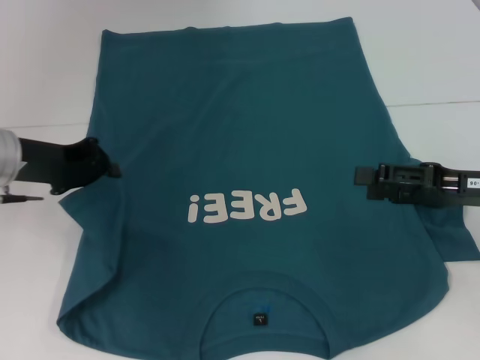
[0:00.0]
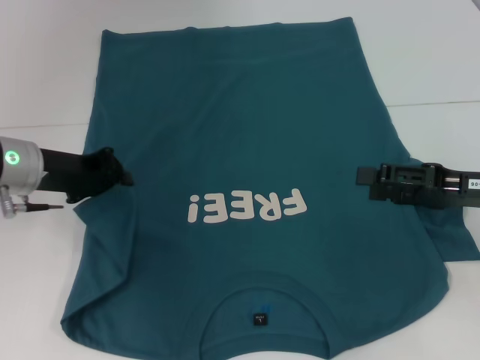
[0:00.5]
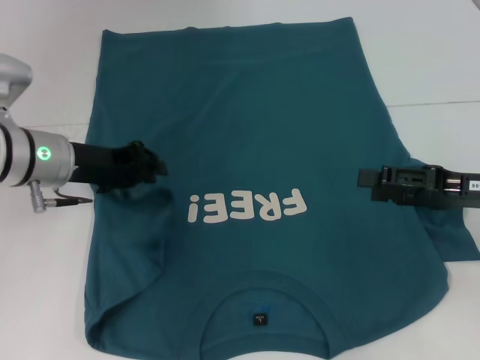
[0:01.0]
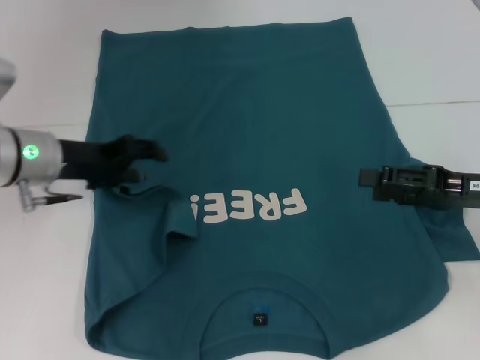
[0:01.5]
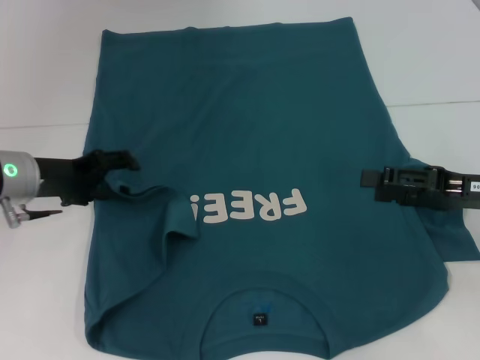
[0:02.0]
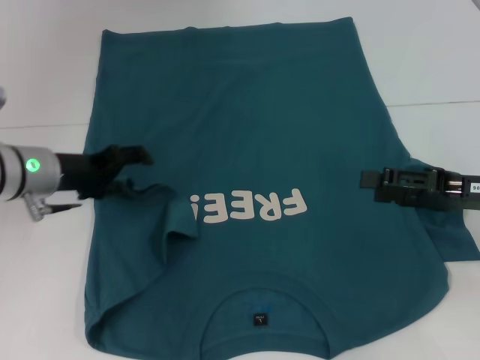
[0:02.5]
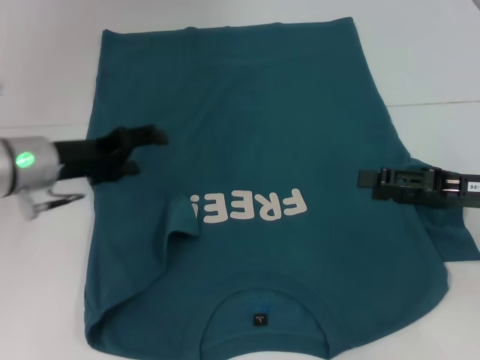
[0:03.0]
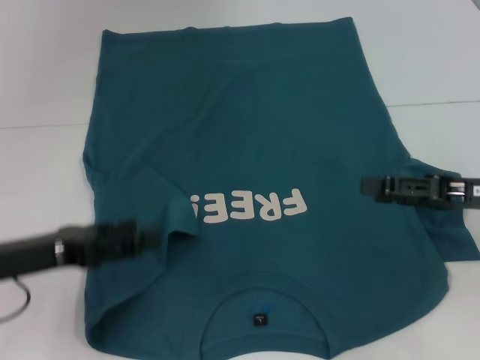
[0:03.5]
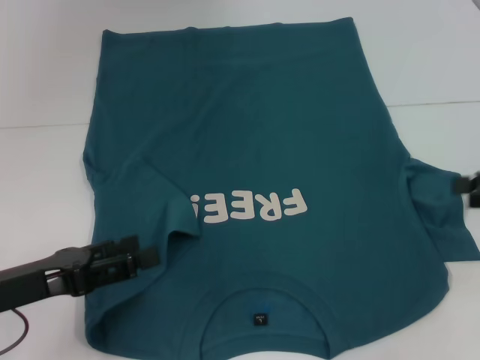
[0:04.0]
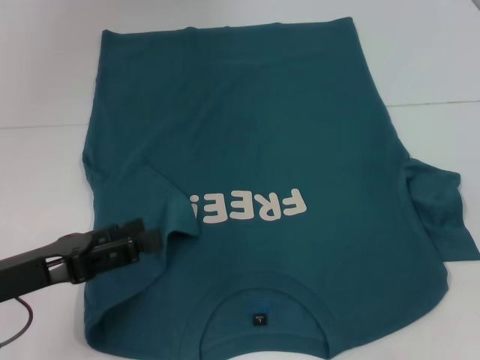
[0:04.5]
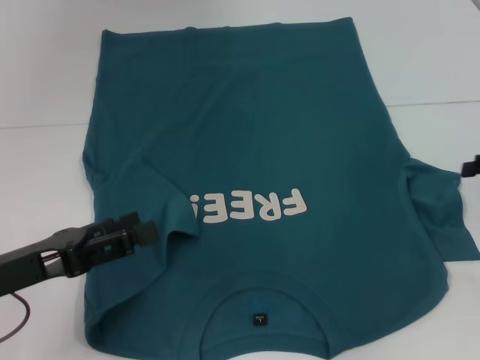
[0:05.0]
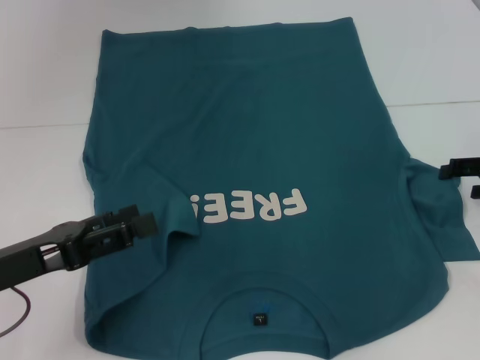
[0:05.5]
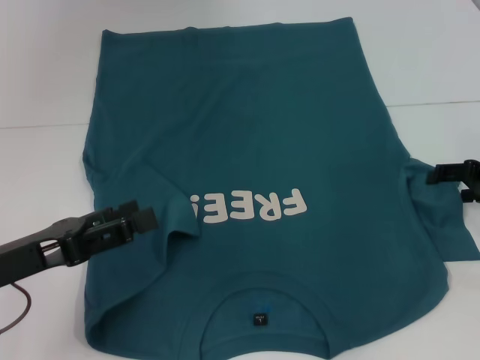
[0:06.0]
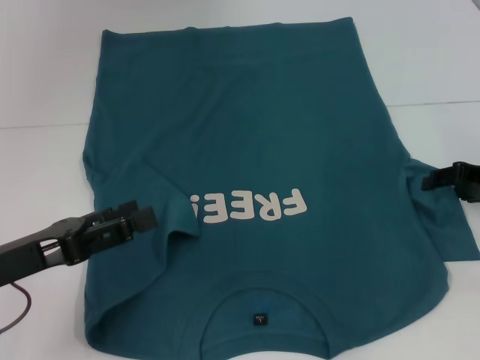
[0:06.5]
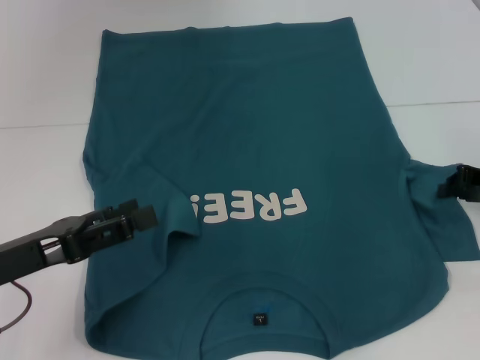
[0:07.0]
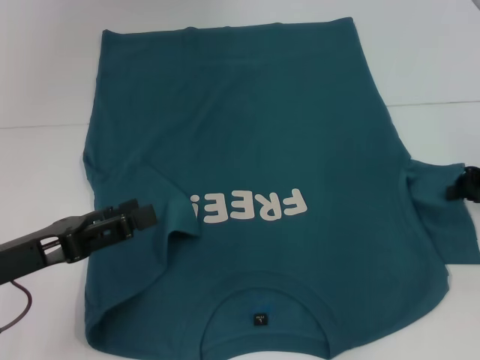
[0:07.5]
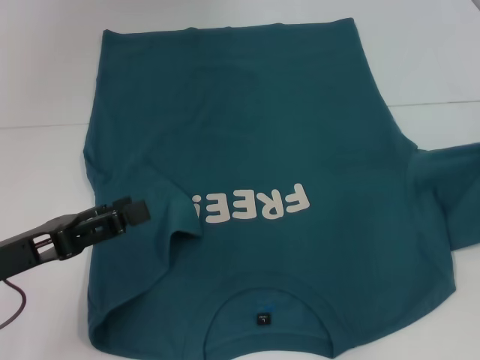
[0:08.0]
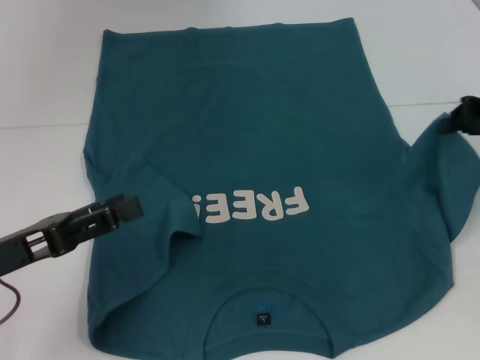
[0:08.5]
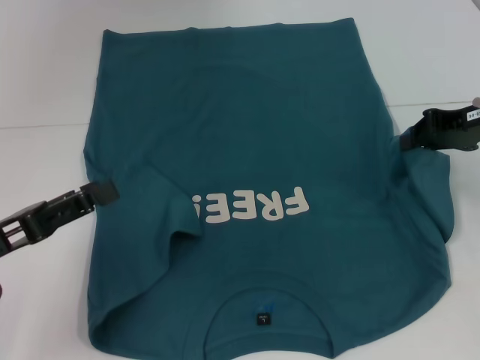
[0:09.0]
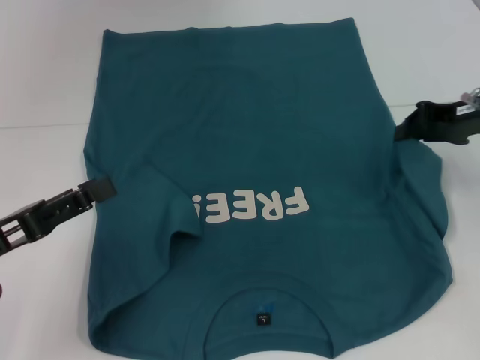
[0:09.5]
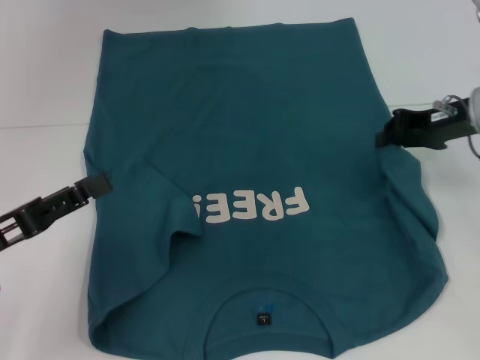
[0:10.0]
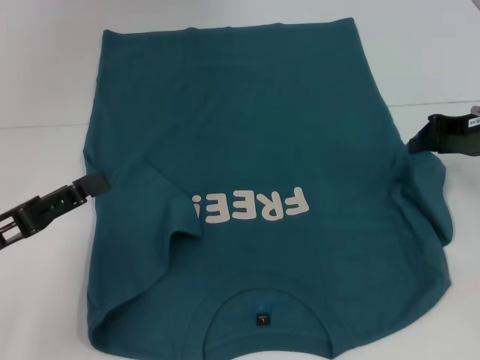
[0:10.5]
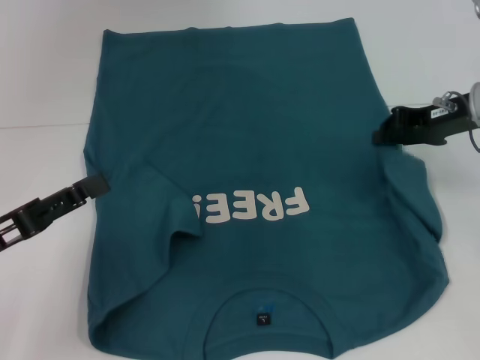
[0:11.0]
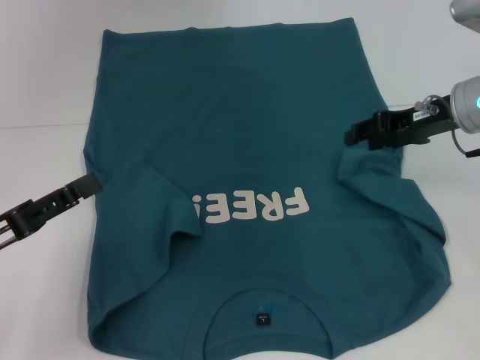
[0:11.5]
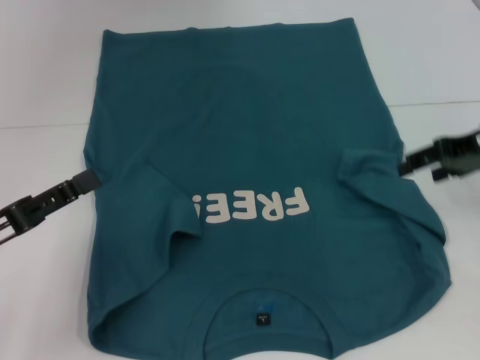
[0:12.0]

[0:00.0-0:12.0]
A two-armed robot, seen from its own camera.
Step, 0:00.0 to 0:03.0: Fold the bottom left sleeve with your left hand.
0:00.0 to 0:02.0: The left gripper opens up.
0:02.0 to 0:04.0: The right gripper goes roughly 10 cm to the right. The left gripper travels backward by some 15 cm.
0:04.0 to 0:06.0: The right gripper is displaced forward and downward by roughly 10 cm.
0:06.0 to 0:08.0: The right gripper changes place by some 5 cm, and closes up.
0:08.0 to 0:10.0: The right gripper shifts some 10 cm to the left.
0:10.0 to 0:12.0: The right gripper opens its fingers.

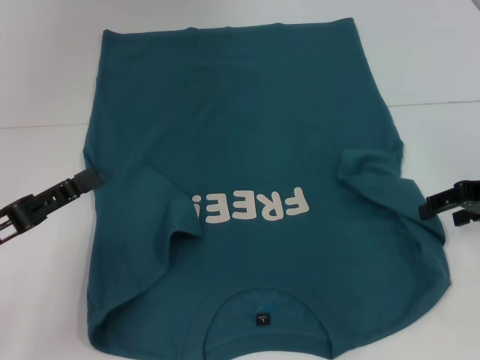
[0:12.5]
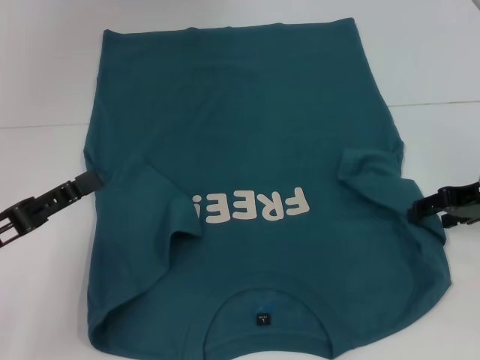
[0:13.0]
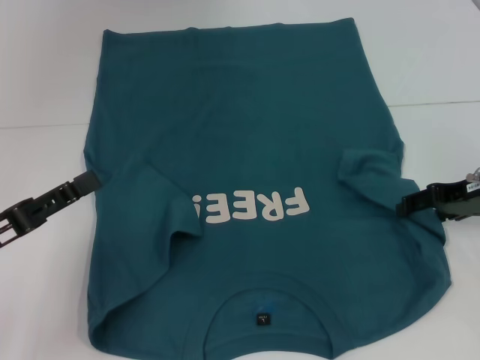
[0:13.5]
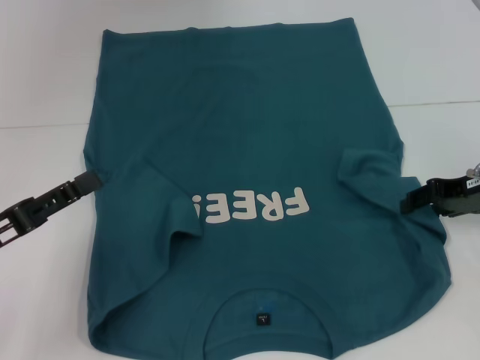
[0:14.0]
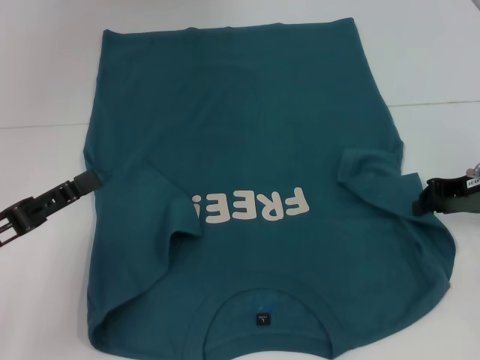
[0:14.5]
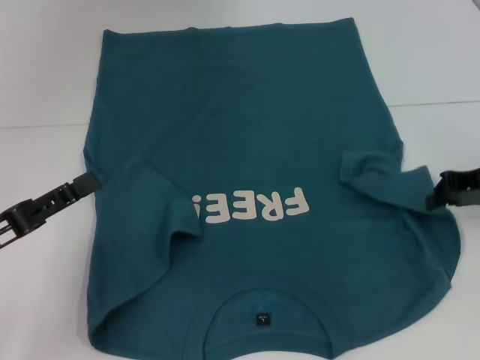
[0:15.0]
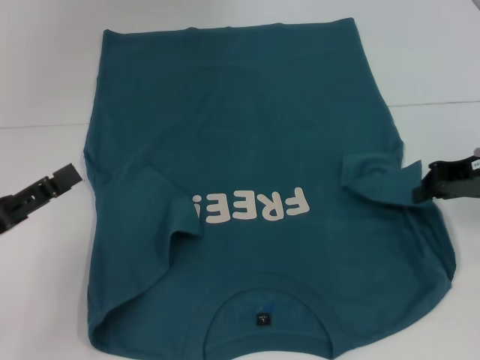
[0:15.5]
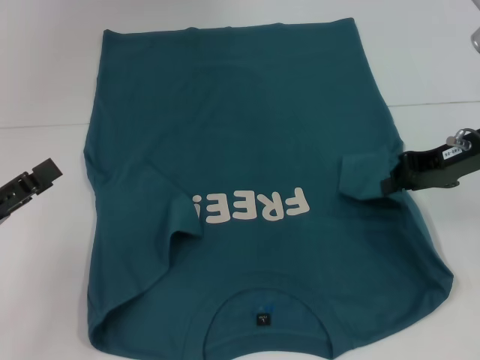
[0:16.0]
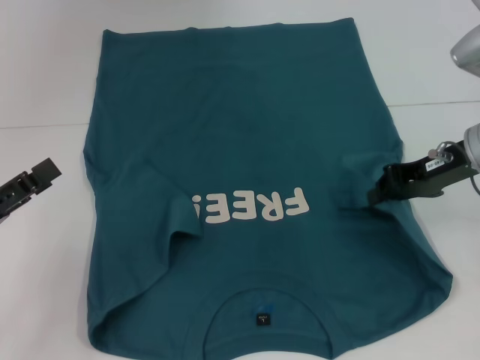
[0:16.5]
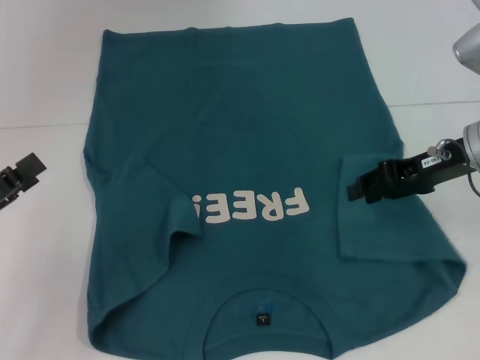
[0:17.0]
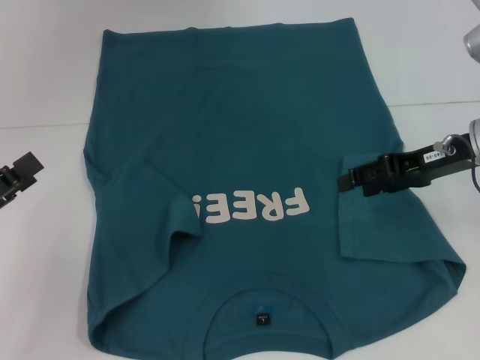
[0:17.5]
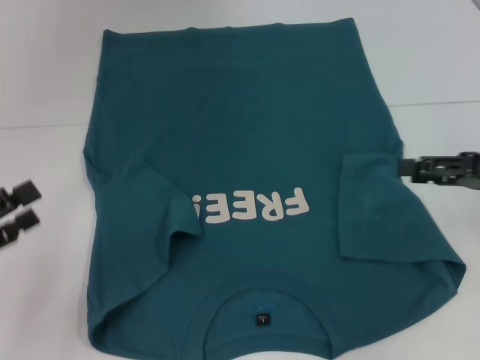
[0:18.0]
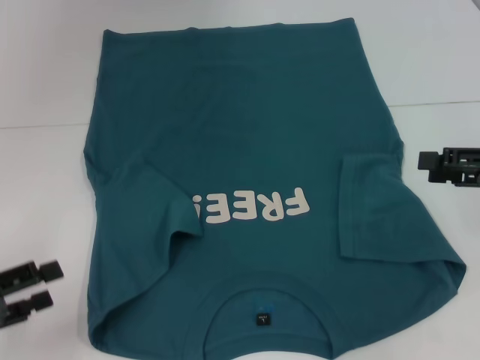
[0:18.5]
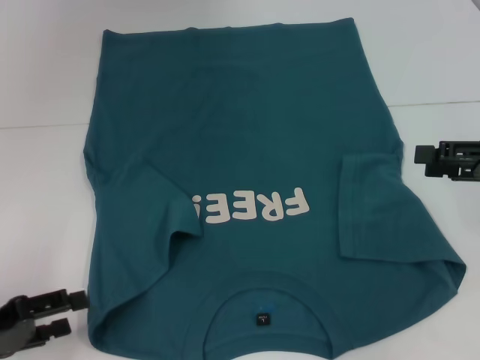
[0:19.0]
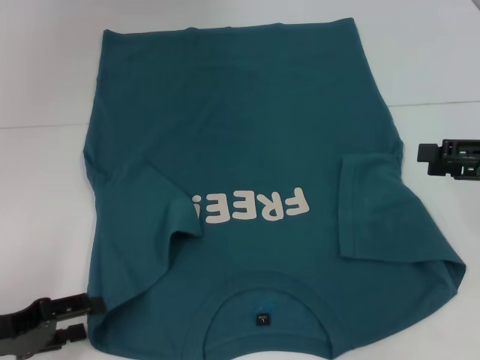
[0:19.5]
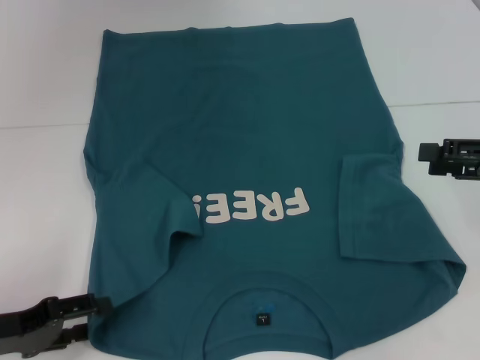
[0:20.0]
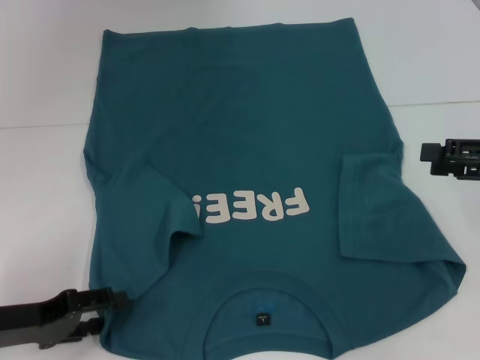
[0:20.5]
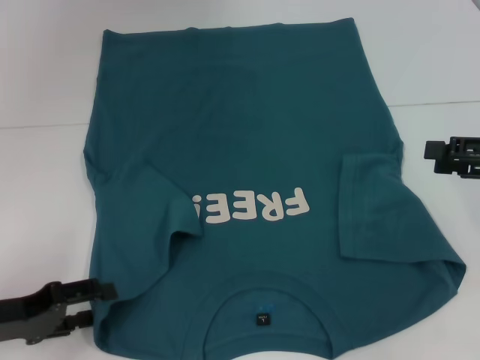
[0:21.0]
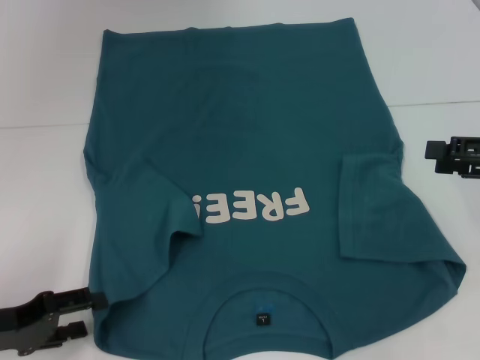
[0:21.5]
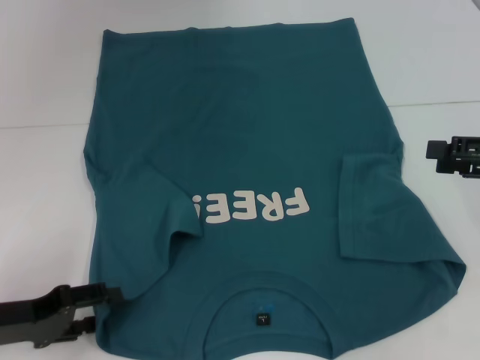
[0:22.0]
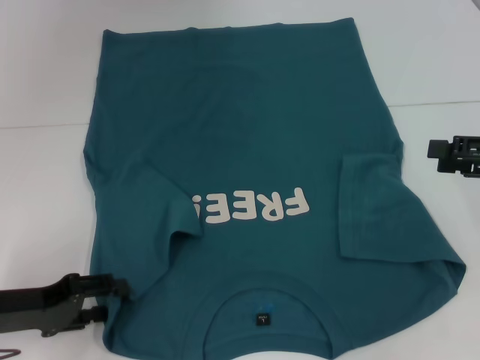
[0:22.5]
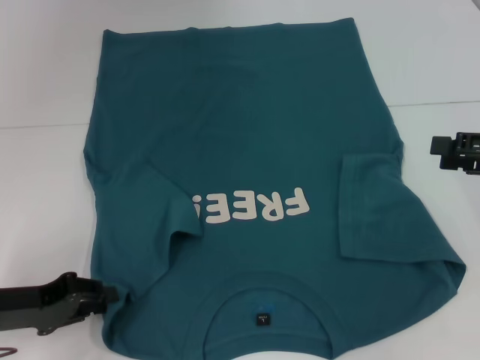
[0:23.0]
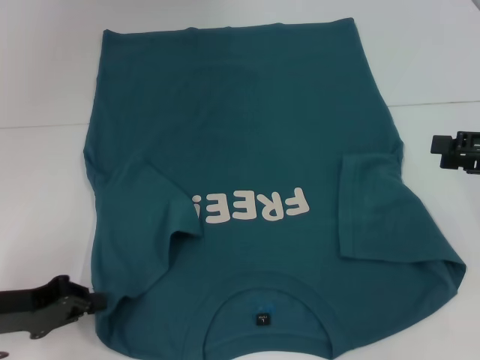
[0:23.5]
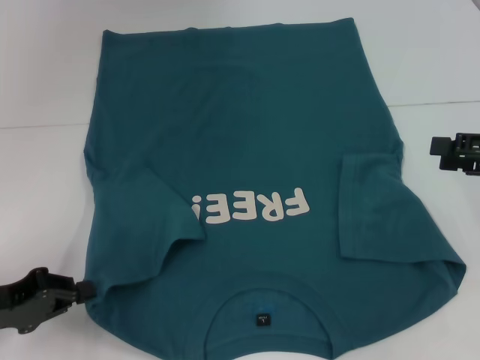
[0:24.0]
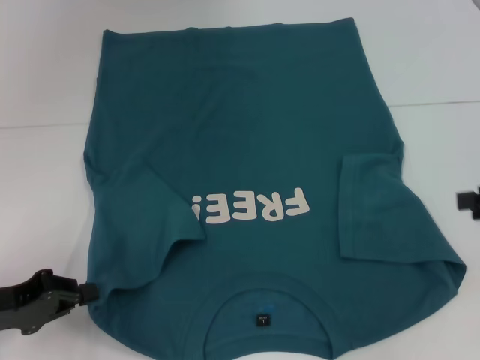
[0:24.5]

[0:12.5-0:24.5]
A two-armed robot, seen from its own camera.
Step, 0:12.5 to 0:17.0: Fold the bottom right sleeve to the right.
0:12.5 to 0:14.5: The right gripper closes up.
0:14.5 to 0:16.5: The right gripper moves approximately 5 cm.
0:16.5 to 0:18.5: The right gripper moves to the right and backward, some 10 cm, and opens its fingers.
0:18.5 to 0:20.5: The left gripper heads to the right, covering some 5 cm.
0:20.5 to 0:22.5: The grippers move only a little.
0:22.5 to 0:24.5: The left gripper closes.

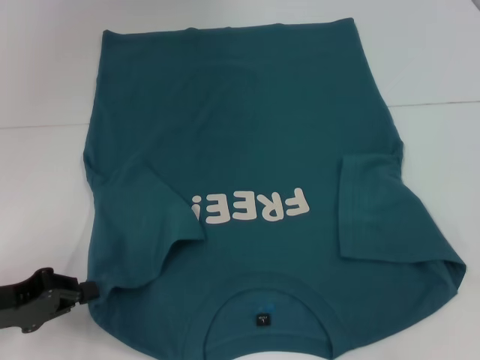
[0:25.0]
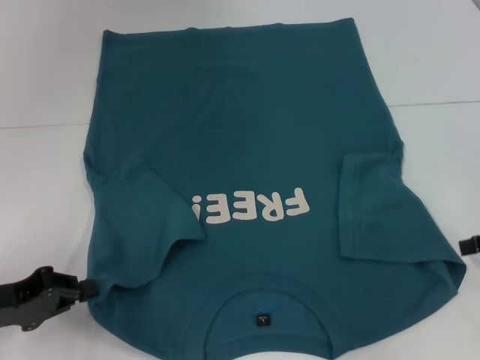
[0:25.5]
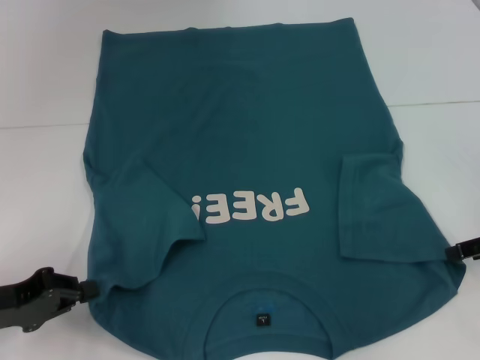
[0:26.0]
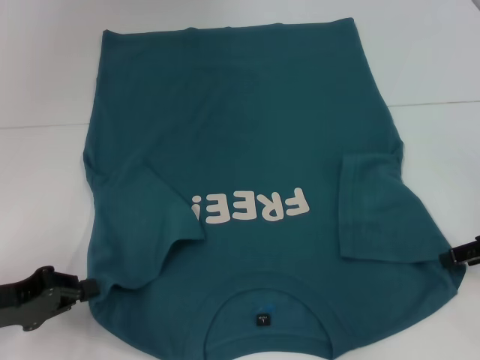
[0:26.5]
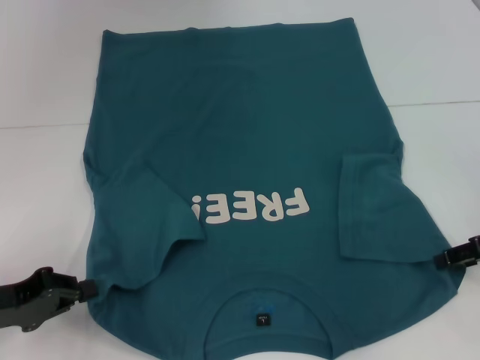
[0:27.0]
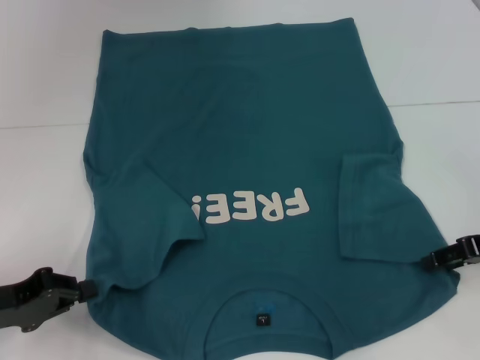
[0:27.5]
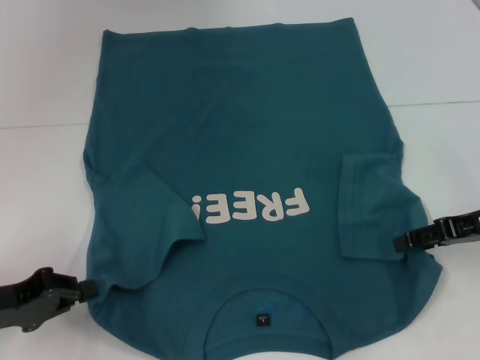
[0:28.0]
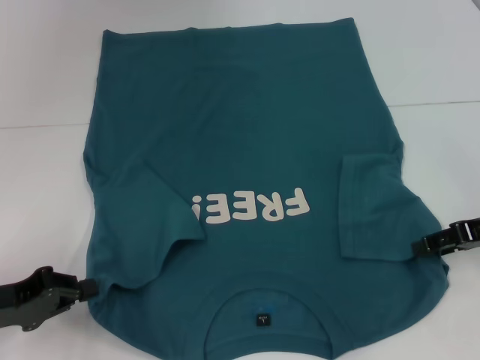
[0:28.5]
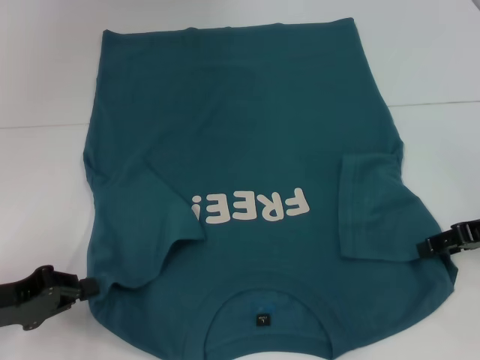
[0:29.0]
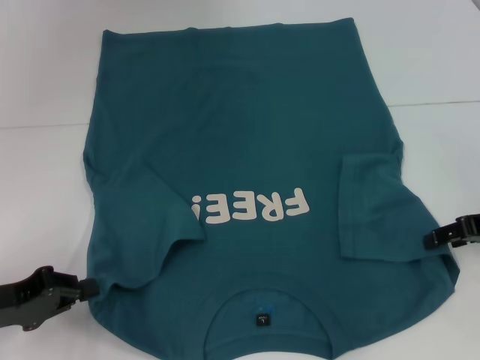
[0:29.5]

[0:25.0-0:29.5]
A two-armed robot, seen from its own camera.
0:27.0 to 0:29.5: There are only small adjustments of the grippers.
